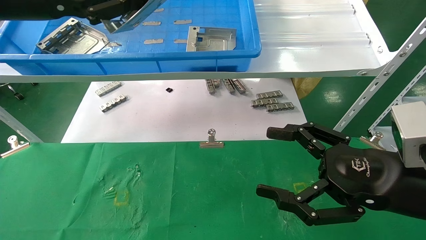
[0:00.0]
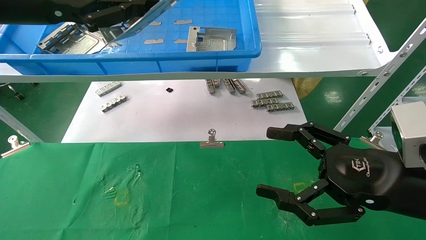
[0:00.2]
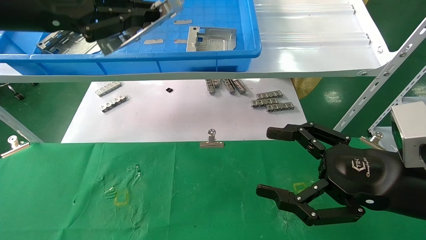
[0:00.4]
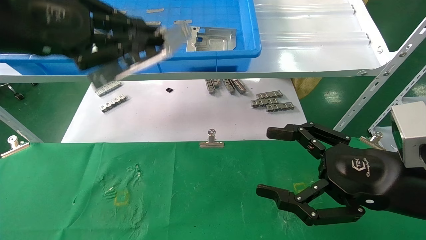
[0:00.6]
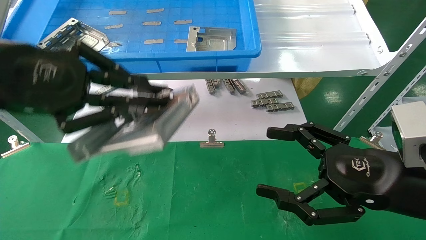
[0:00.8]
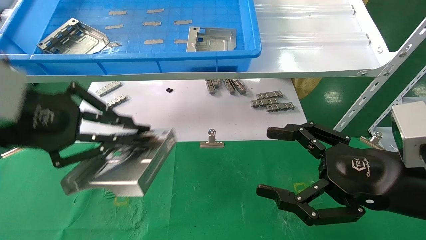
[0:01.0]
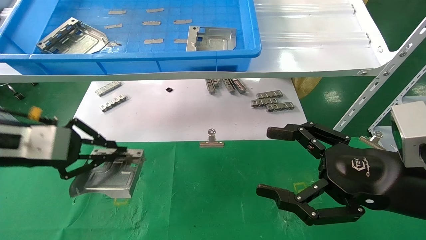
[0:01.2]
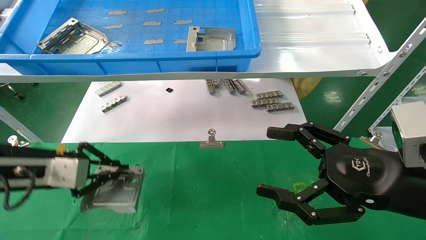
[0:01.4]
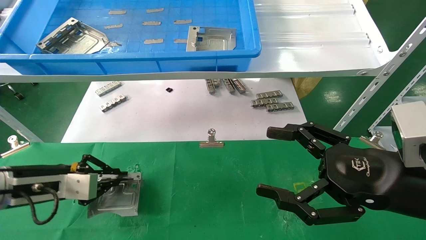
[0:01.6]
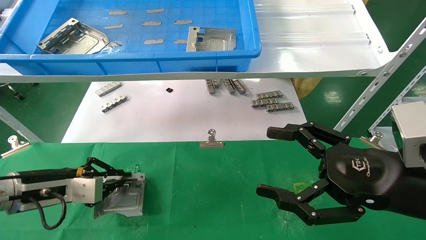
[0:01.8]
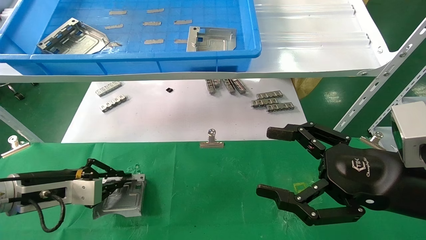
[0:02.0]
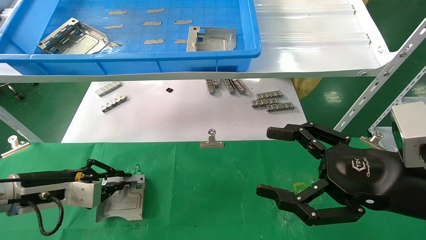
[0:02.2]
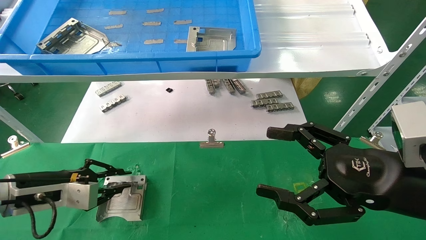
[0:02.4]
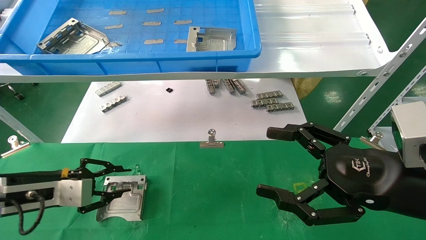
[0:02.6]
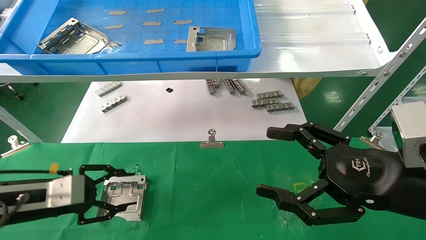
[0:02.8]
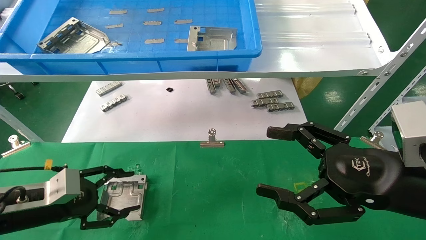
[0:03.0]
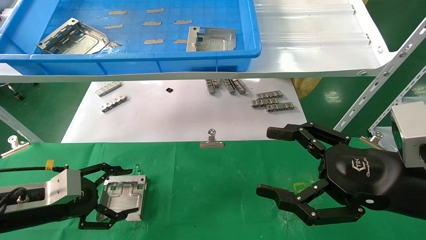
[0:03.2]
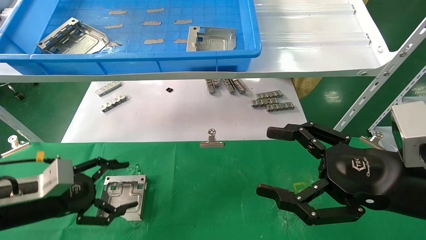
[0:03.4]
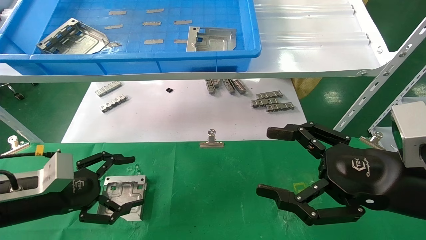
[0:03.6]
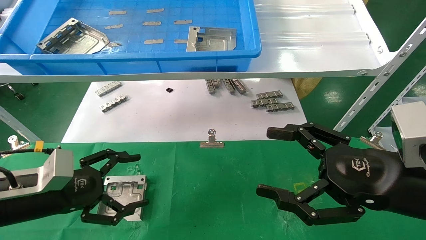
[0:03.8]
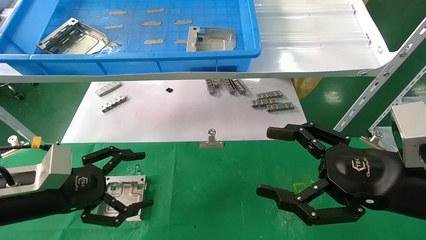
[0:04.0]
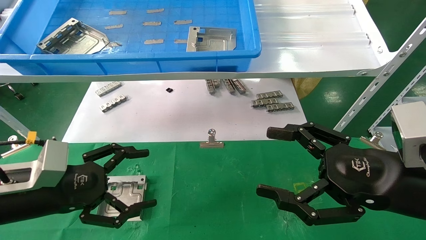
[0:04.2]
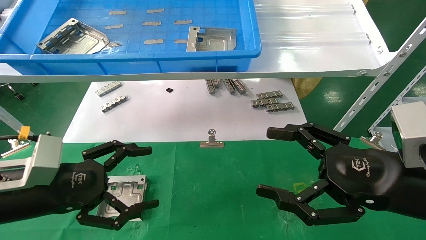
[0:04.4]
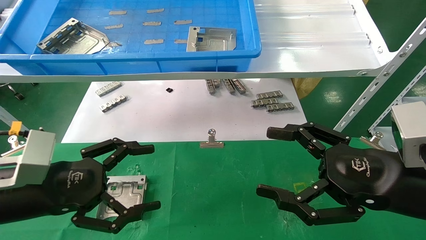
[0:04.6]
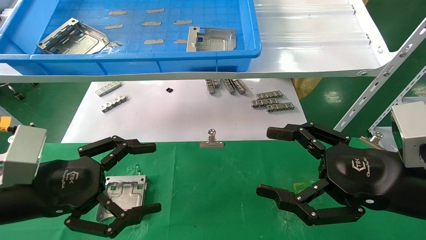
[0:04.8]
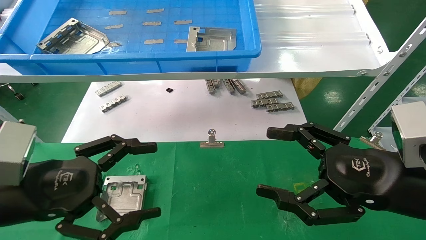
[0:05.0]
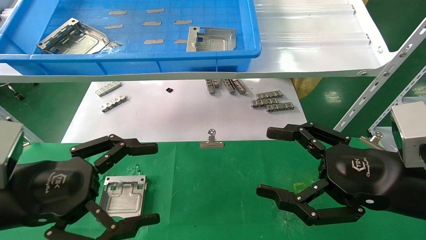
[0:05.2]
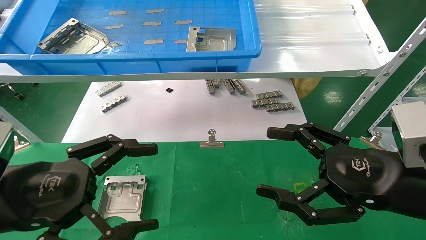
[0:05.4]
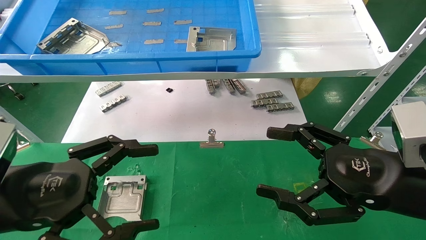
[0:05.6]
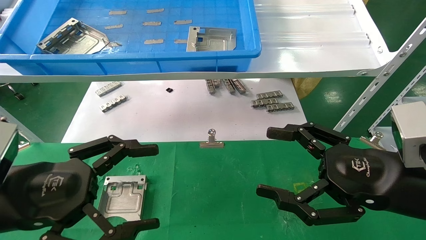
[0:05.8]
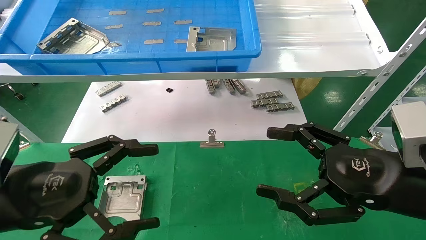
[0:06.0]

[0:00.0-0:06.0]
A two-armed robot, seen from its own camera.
Task of the whole recording: use the mechanical arm to pick up the parts and place them on the table.
Step, 0:00.0 to 0:02.4: Place the hard drive bracket into the box.
0:00.0 to 0:01.6: The left gripper goes some 30 cm downward.
0:01.6 to 0:03.0: The left gripper ends up approximately 5 cm from where it was, and opens.
0:03.0 to 0:04.4: The left gripper is displaced upward, to the right and backward by about 10 cm, and opens.
0:04.4 to 0:06.0: The left gripper travels backward by some 5 cm.
